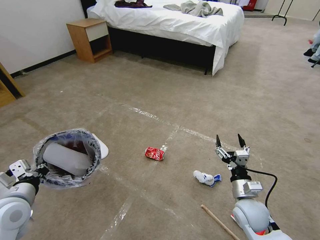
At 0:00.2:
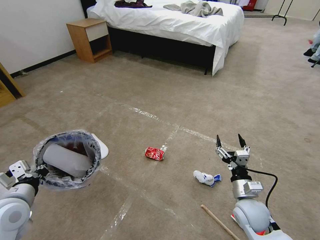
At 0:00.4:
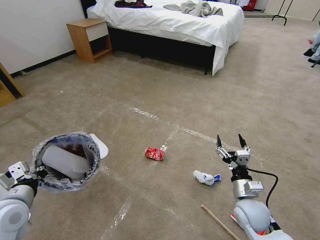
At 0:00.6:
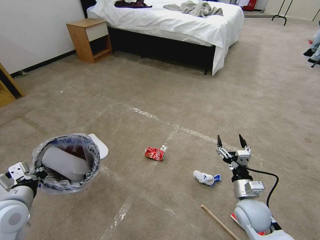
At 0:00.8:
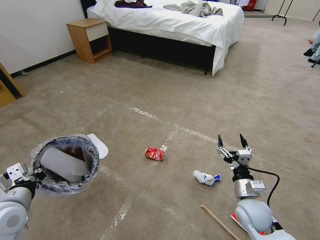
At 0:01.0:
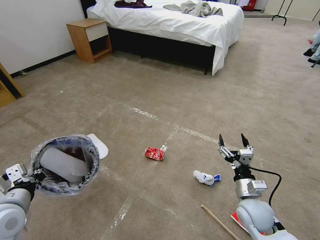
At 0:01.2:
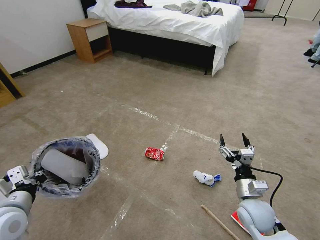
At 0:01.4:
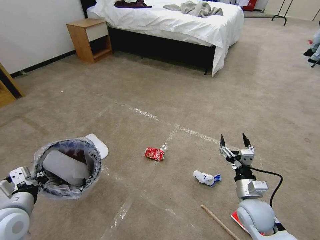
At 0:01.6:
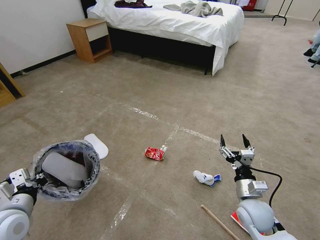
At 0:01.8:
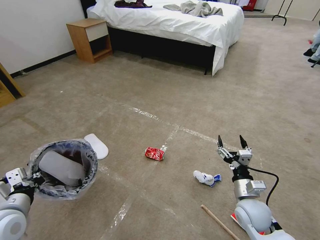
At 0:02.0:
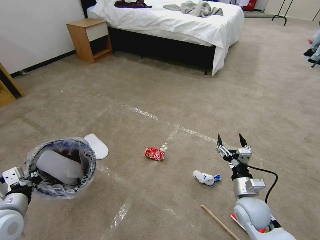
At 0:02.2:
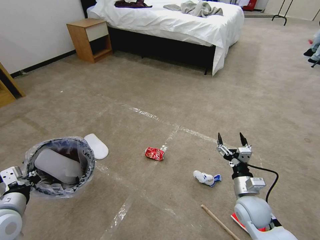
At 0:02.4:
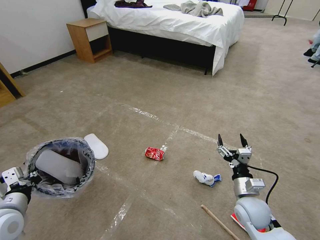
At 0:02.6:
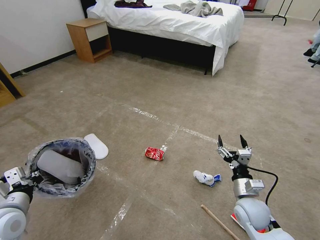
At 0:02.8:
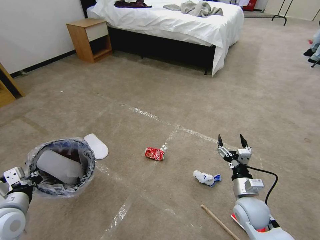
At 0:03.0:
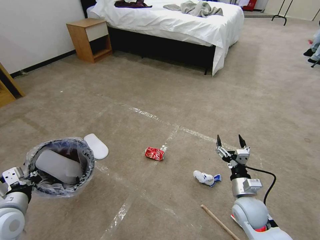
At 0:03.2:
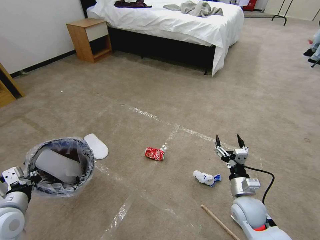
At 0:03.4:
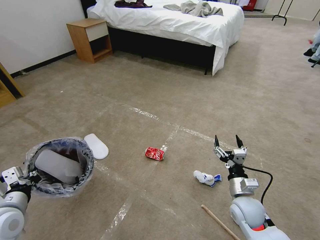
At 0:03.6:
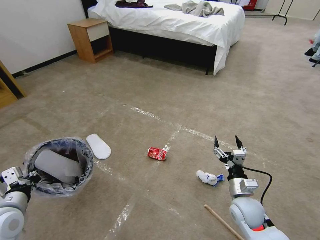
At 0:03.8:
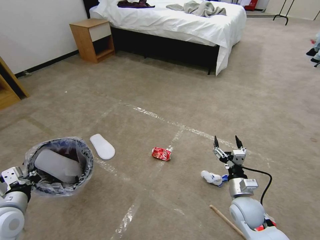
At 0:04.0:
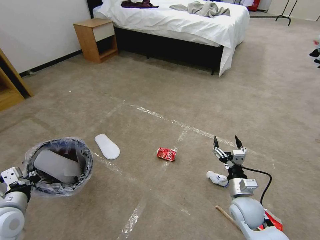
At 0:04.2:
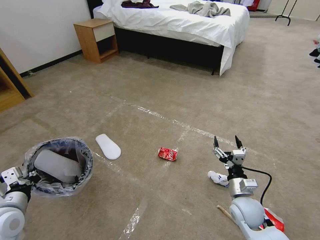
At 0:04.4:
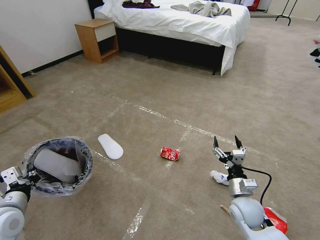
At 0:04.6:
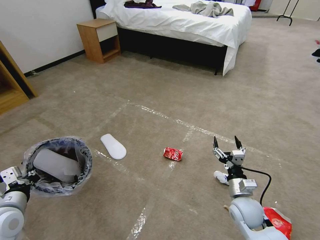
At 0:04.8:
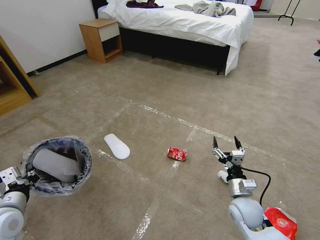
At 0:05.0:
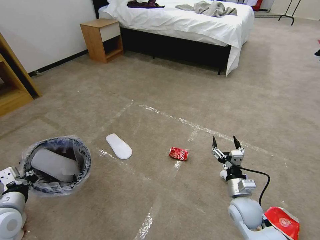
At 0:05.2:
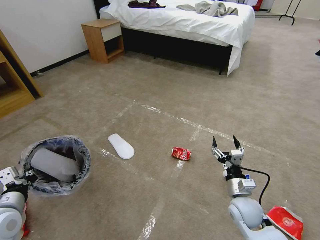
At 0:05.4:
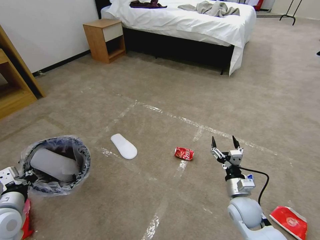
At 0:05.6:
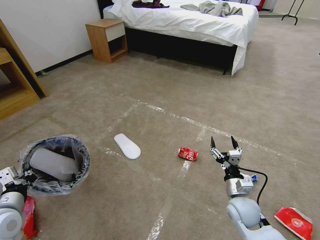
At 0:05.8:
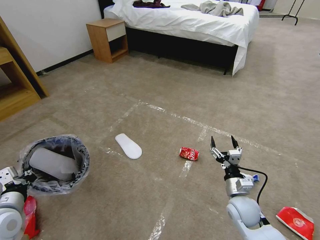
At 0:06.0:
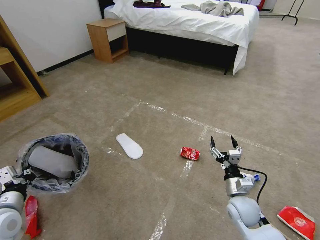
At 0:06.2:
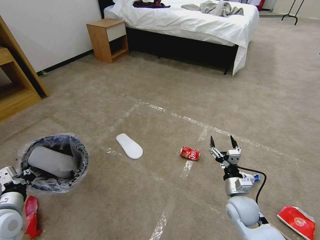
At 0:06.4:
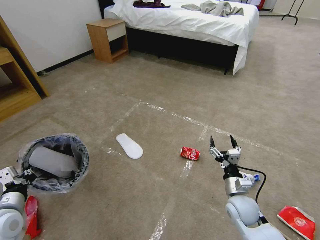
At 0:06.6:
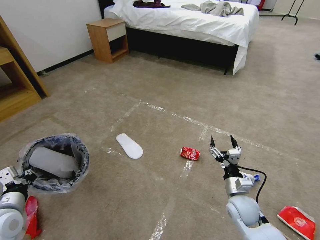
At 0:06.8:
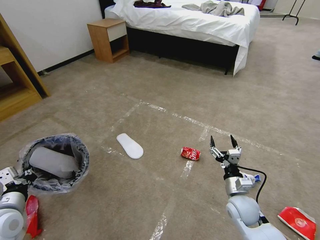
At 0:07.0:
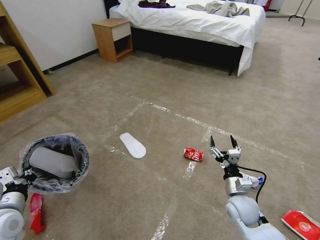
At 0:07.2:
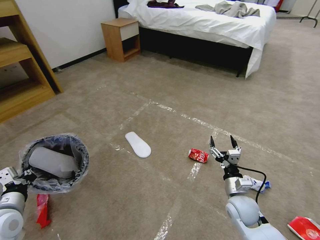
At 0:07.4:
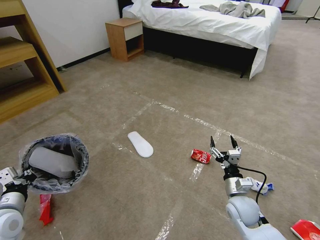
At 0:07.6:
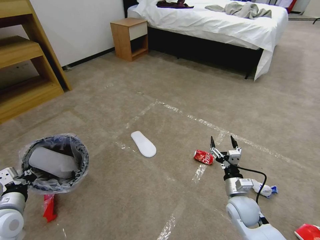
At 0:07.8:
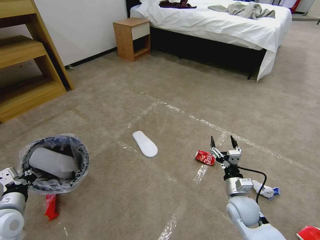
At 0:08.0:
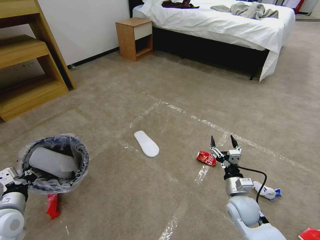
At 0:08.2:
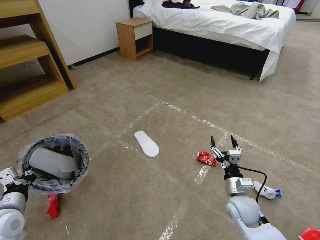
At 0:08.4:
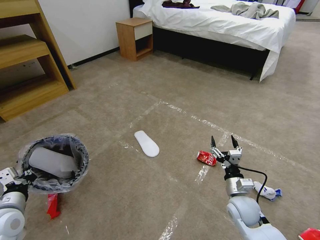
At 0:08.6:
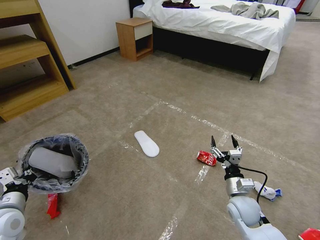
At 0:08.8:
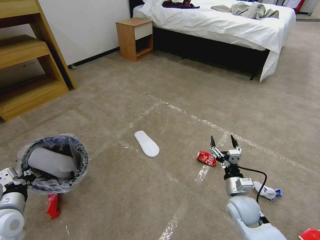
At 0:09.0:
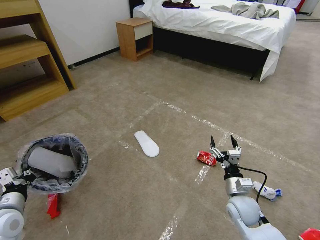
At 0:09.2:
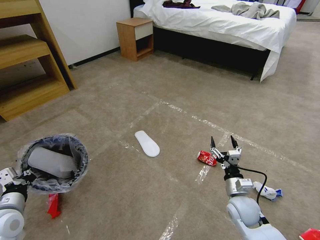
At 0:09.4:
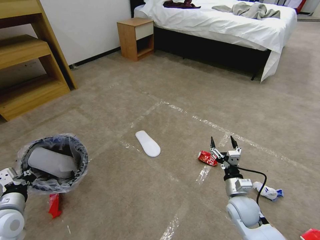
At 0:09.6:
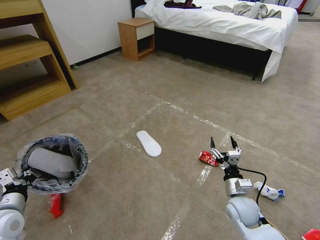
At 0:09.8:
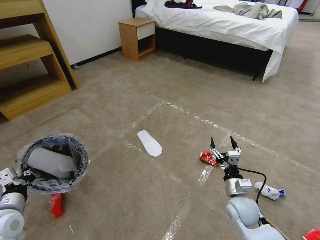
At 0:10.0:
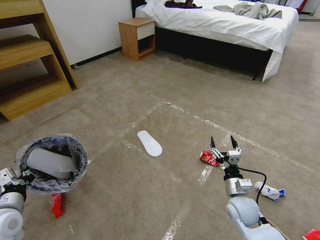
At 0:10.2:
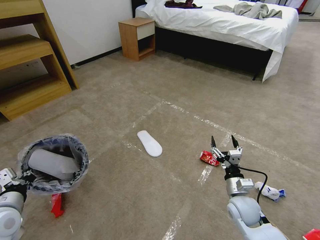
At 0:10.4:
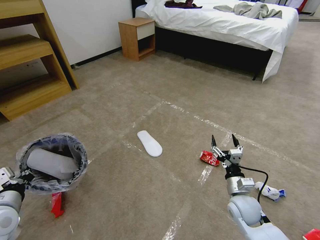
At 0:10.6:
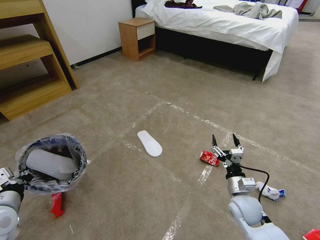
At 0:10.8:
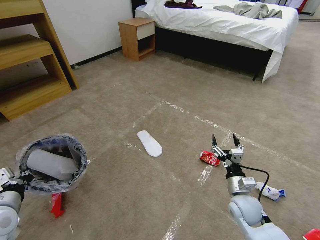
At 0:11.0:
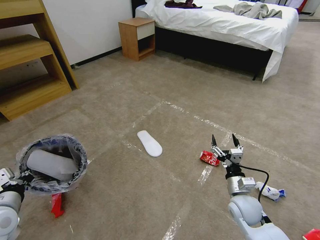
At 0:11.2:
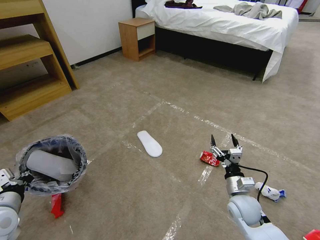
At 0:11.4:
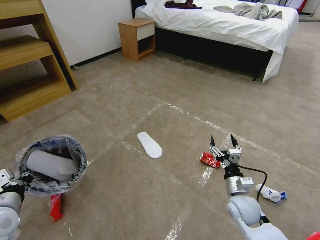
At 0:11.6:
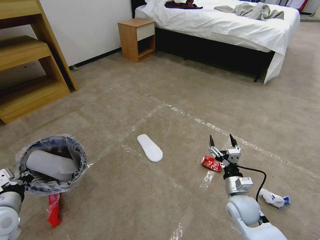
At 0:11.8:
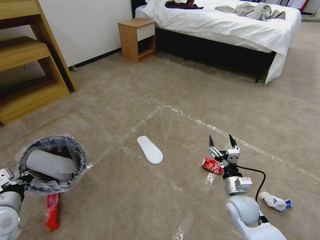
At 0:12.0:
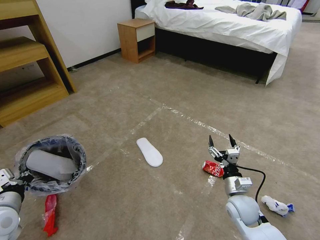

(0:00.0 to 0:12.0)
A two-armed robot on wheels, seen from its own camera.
Task of the whole recording: Pick up the trash bin and place the garbage on the floor into it.
0:00.0 - 0:03.0: The grippers stay close to where they were, moving slightly.
0:03.0 - 0:04.4: Both grippers stay about where they are.
0:07.6 - 0:09.0: The two grippers keep their place.
0:09.0 - 0:10.4: The grippers make only small movements.
0:10.4 - 0:12.0: Both grippers stay about where they are.

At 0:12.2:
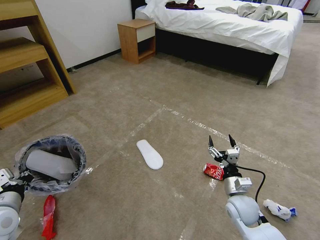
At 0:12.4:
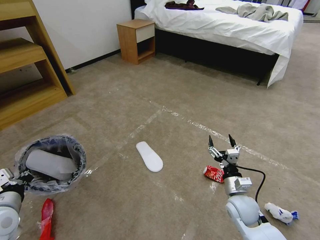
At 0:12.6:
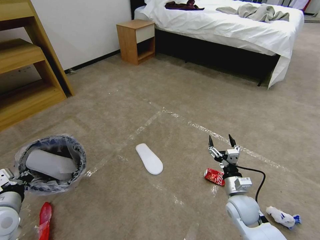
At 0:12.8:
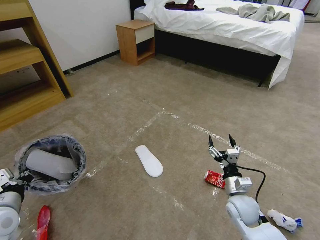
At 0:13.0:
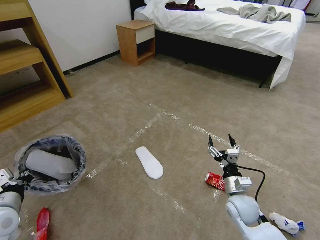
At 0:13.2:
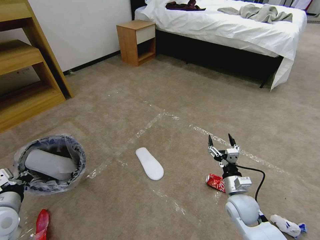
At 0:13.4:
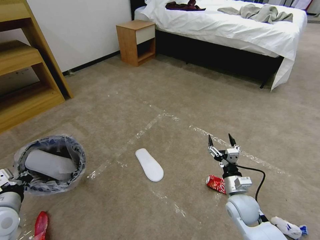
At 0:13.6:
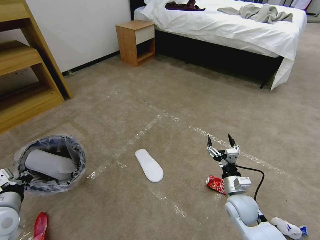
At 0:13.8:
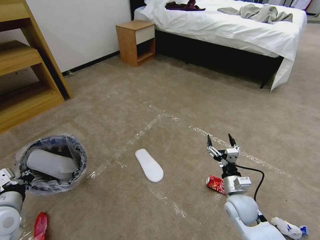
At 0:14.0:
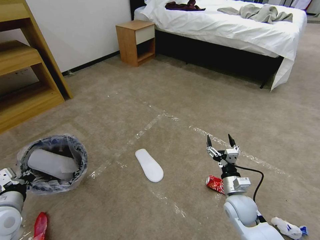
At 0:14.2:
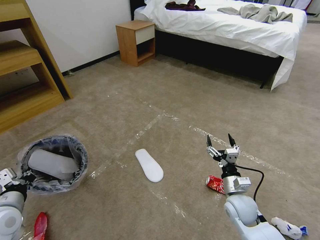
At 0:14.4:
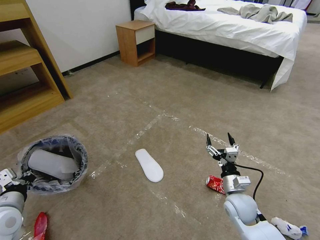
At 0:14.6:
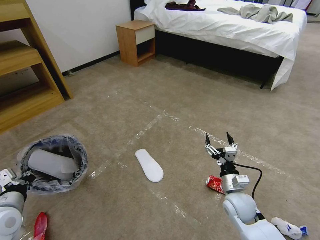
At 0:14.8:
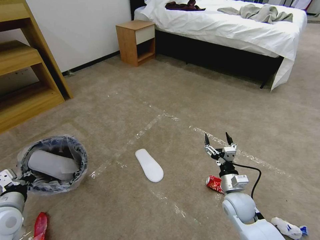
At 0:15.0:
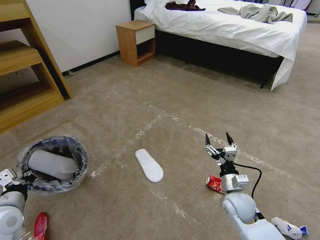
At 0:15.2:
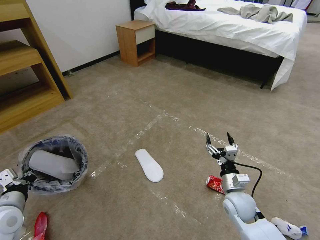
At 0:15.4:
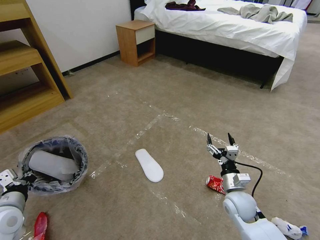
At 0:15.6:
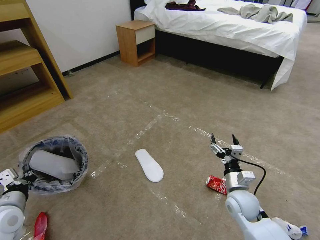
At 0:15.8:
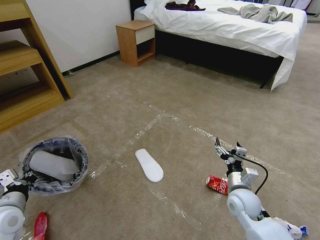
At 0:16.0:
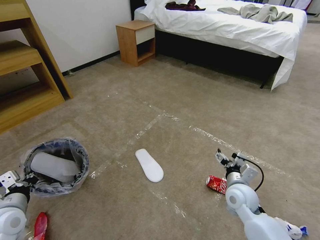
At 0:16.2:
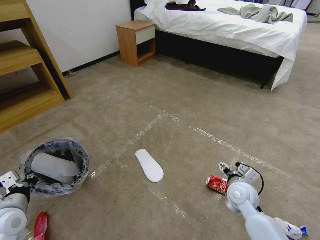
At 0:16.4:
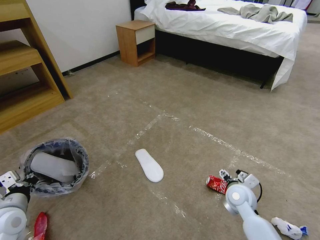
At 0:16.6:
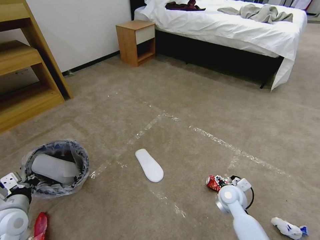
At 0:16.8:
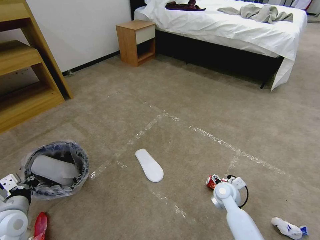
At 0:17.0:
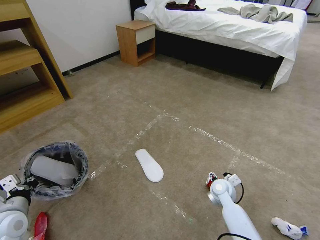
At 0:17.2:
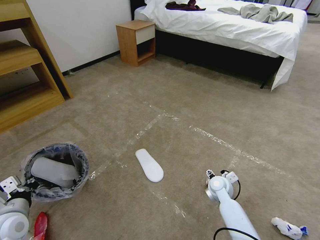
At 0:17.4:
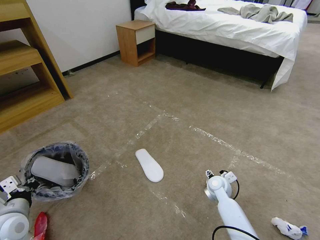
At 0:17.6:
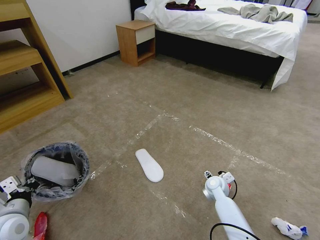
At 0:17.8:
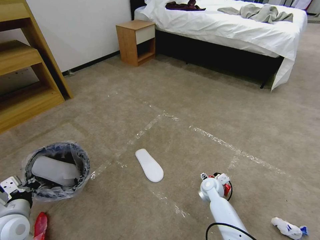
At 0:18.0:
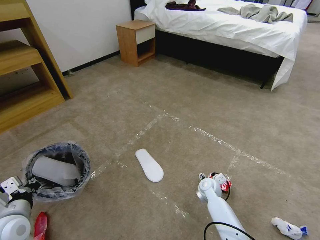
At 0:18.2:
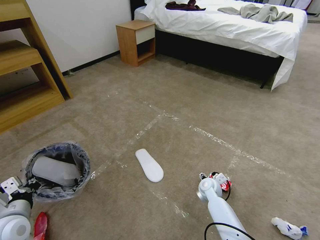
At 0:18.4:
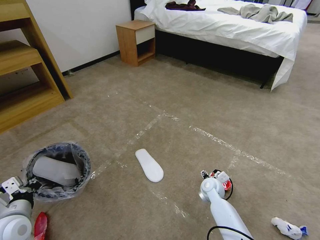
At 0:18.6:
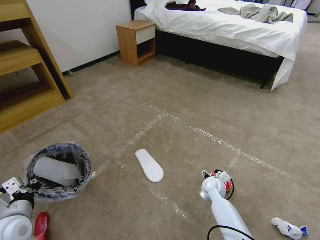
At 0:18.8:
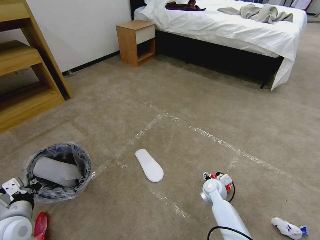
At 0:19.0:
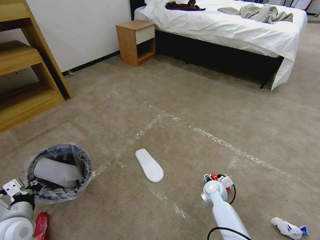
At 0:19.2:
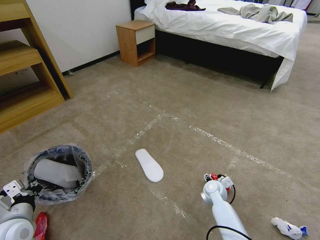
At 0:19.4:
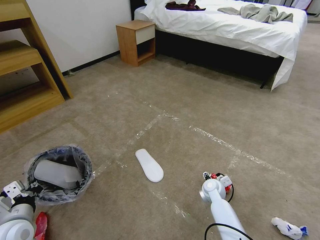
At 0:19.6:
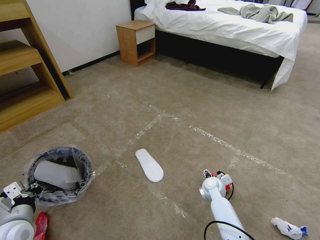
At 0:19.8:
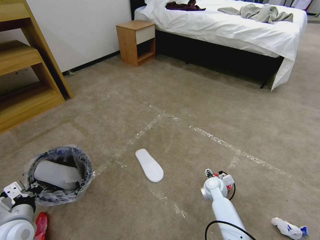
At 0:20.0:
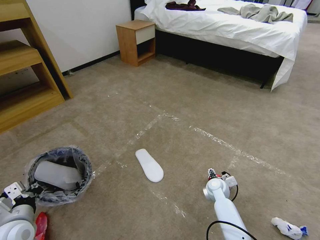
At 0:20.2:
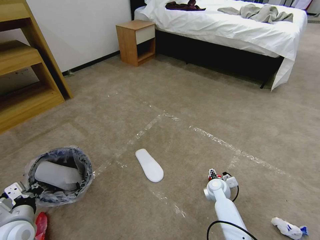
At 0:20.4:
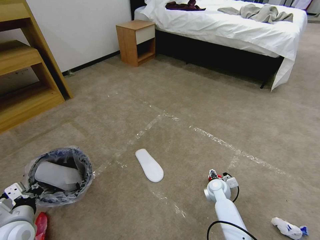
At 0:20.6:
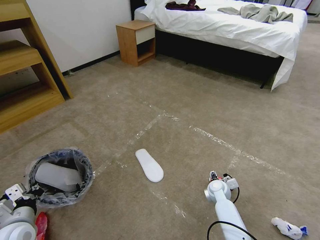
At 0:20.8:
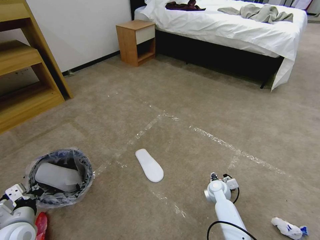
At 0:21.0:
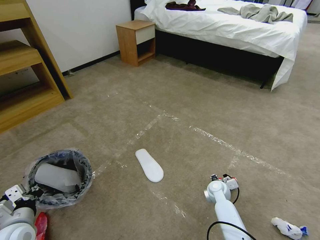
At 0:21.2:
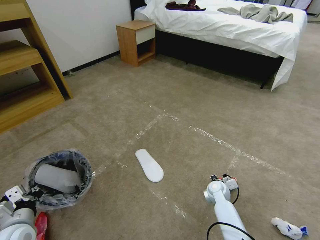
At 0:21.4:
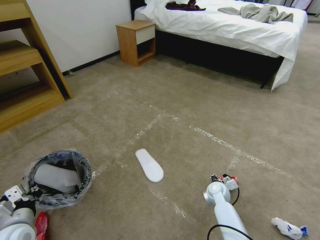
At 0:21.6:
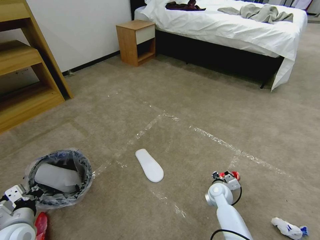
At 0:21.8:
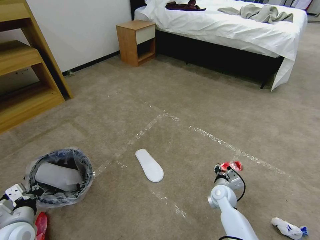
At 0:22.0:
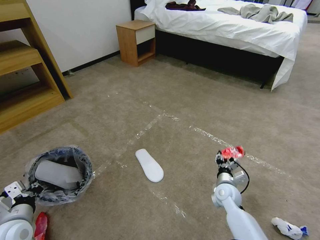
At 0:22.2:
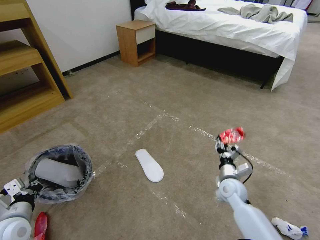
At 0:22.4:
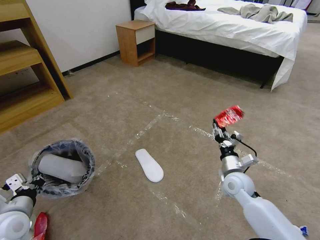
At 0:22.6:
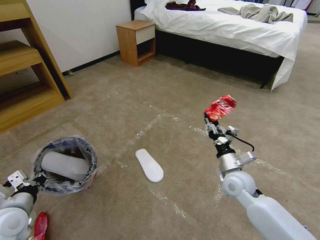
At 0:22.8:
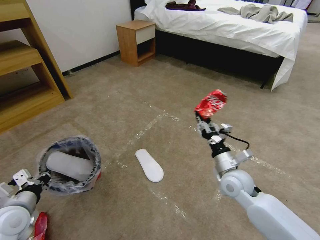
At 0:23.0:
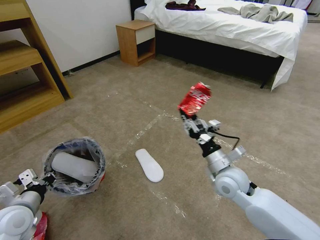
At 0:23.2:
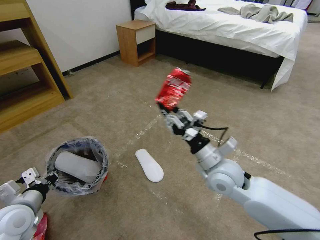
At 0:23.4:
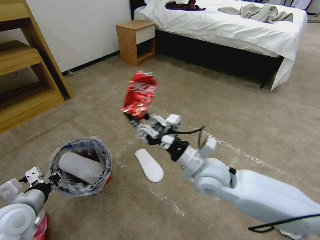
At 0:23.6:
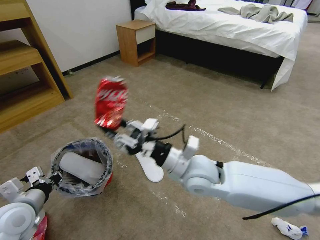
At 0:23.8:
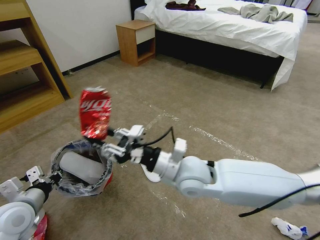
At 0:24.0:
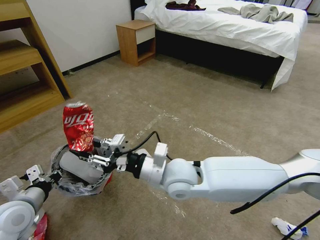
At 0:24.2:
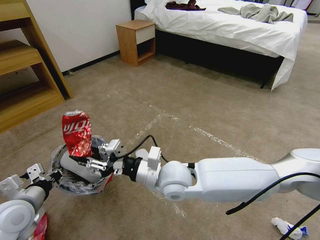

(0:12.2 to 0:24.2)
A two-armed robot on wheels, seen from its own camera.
Task of the whole recording: Pick up the trash bin and place the garbage on the floor into it.
0:12.2 - 0:15.2: Both grippers stay put.
0:16.6 - 0:18.2: The right gripper travels downward and forward by some 10 cm.
0:18.2 - 0:19.8: The grippers move only a little.
0:19.8 - 0:21.2: The right gripper closes up.
0:21.2 - 0:22.6: The left gripper shifts about 5 cm upward. The right gripper moves upward, some 15 cm.
0:22.6 - 0:24.2: The right gripper shifts approximately 25 cm to the left and upward.
